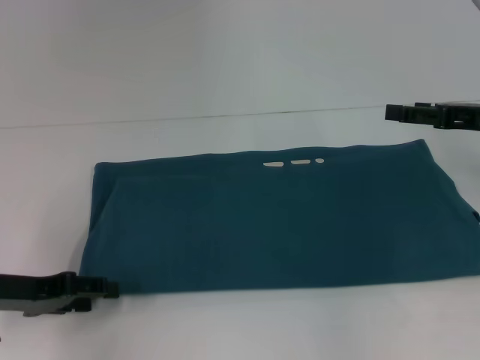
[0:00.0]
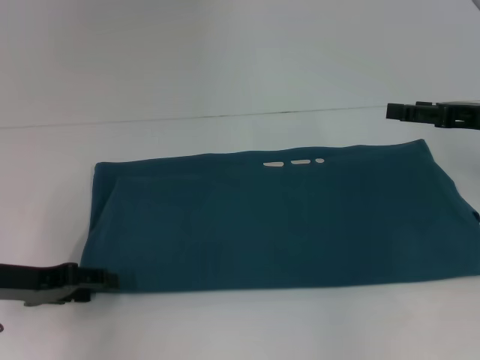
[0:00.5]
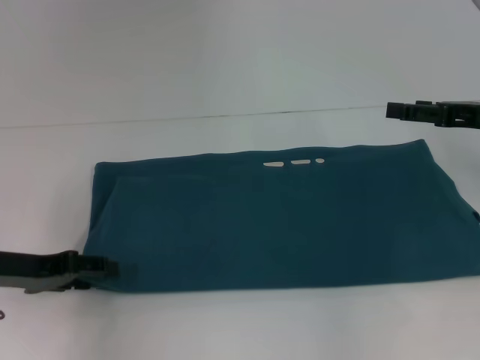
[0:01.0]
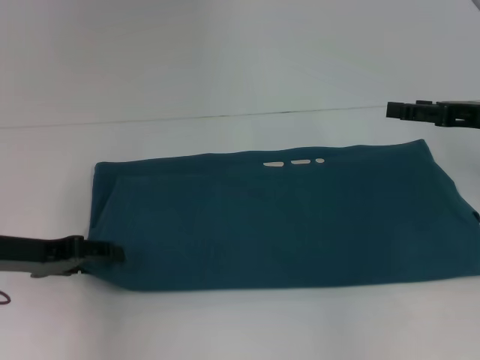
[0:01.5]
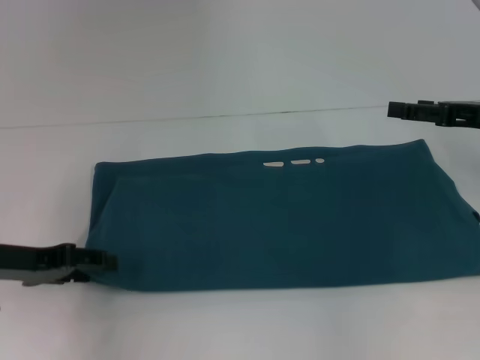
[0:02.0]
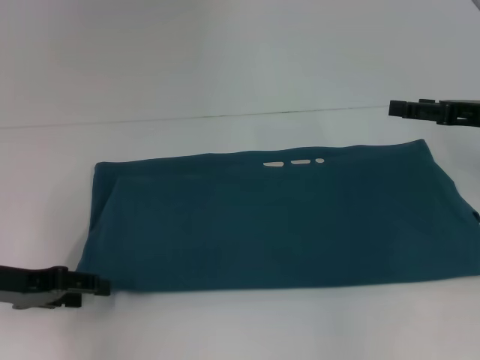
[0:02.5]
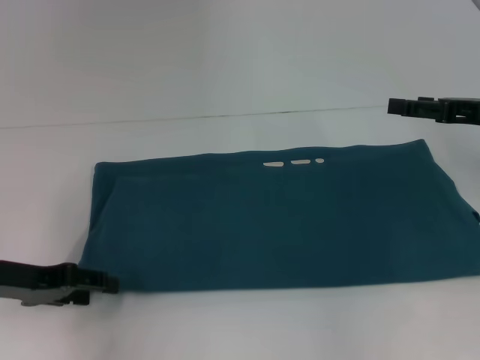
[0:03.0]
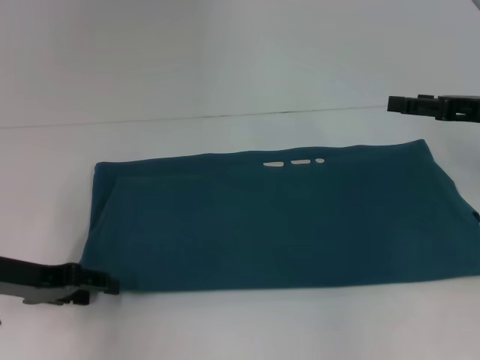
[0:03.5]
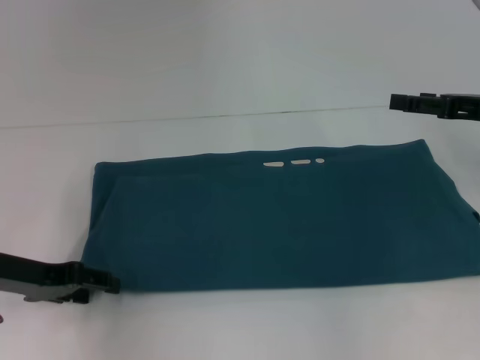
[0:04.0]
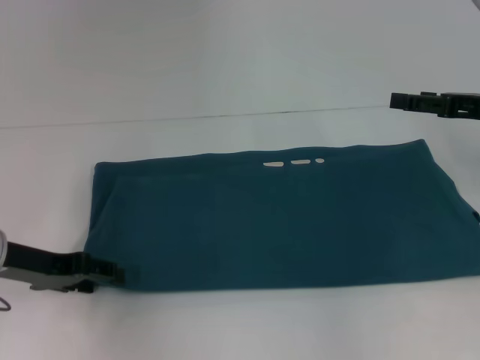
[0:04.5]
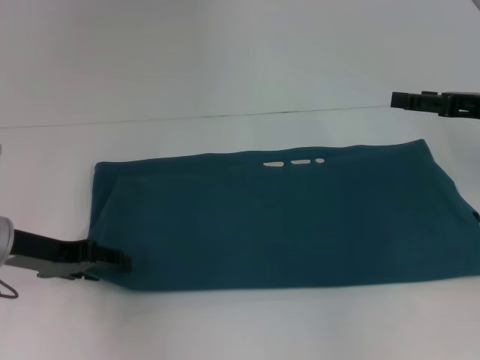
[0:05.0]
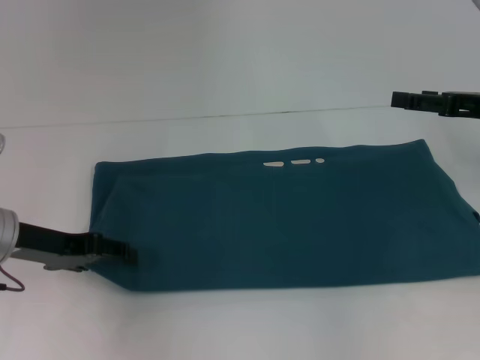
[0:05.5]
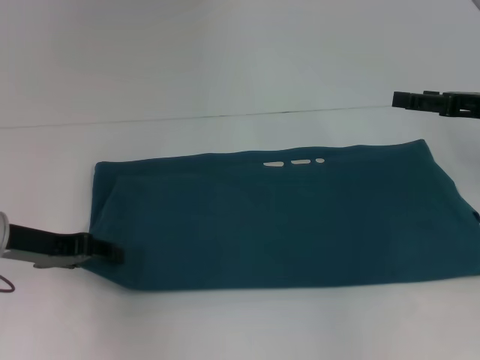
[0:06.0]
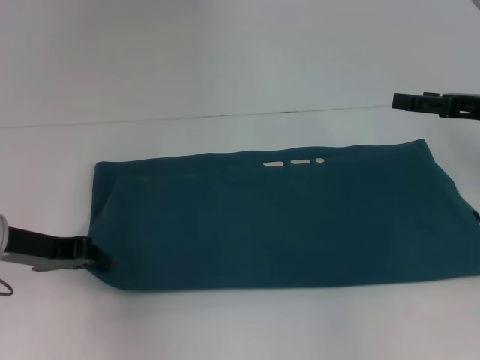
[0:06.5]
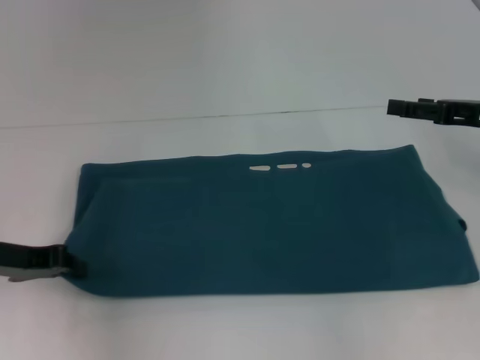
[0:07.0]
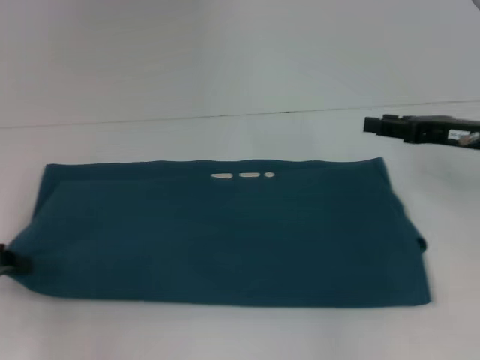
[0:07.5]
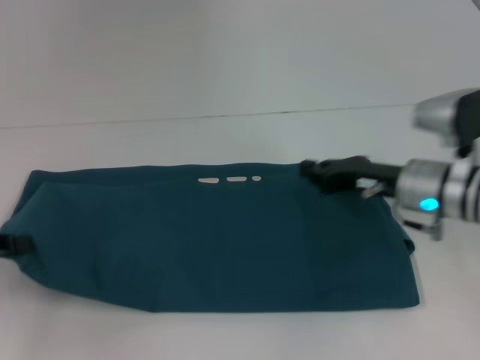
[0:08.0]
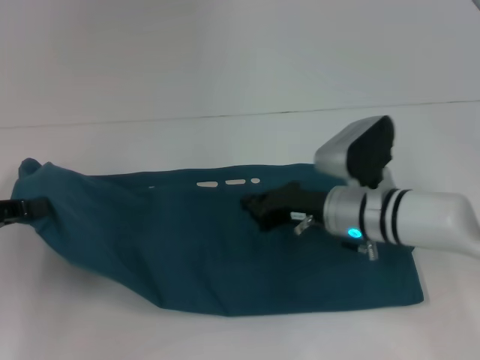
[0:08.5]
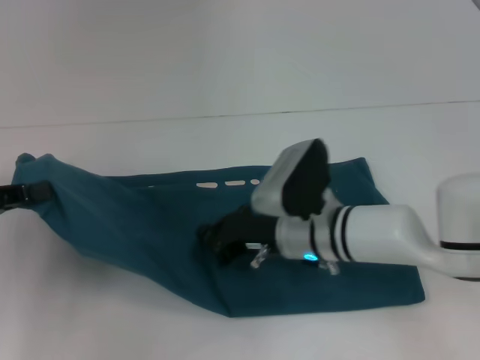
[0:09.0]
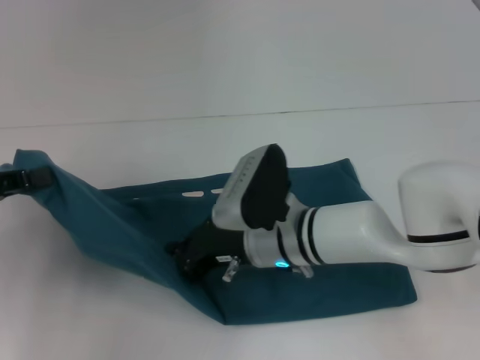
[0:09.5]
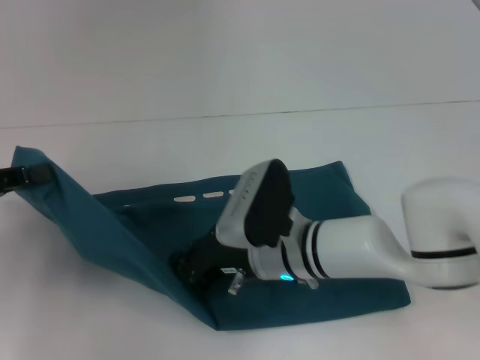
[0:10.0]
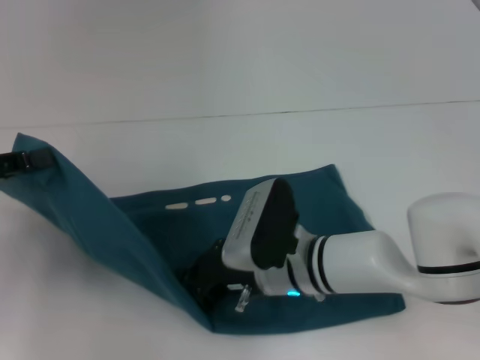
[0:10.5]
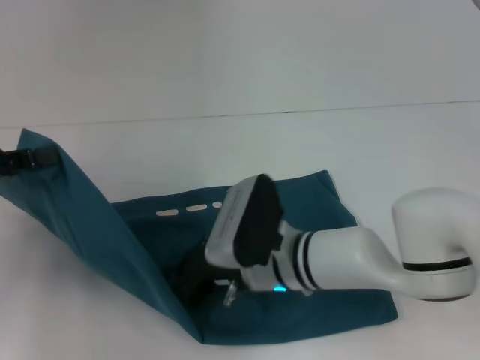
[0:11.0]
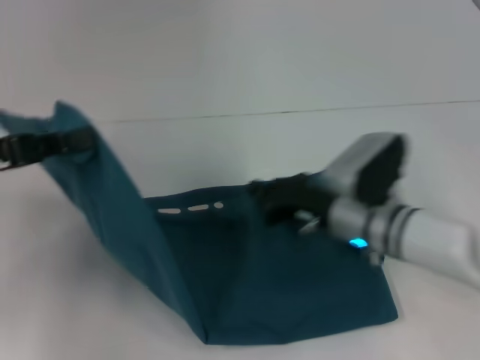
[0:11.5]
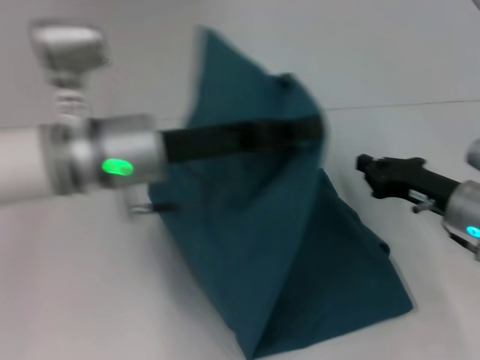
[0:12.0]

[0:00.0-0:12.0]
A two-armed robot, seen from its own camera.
Step, 0:00.0 to 0:11.0: Press the middle of the clothes with your right hand.
0:00.0 to 0:04.0: The grippers move only a little.
0:04.0 to 0:06.0: There are only small adjustments of the grippers.
0:06.0 to 0:08.0: The right gripper travels to the left and downward by about 15 cm, and closes. The left gripper shifts roughly 10 cm to the left and backward, and closes up.
0:08.0 to 0:10.0: The right gripper moves to the left, roughly 15 cm.
0:10.0 to 0:12.0: The two grippers go approximately 20 cm to the right.

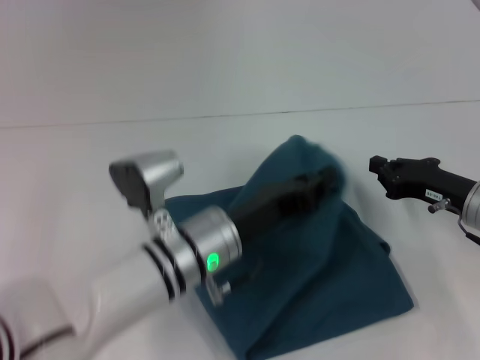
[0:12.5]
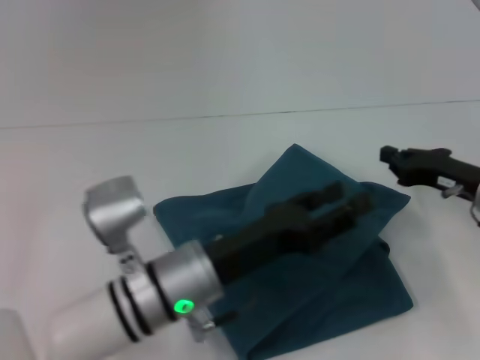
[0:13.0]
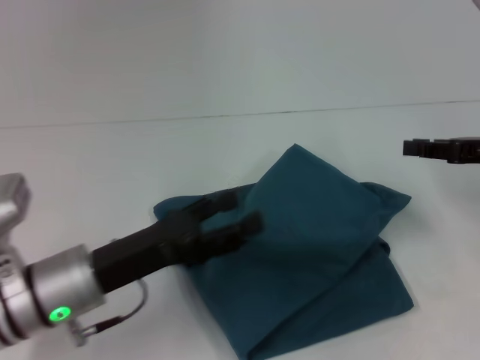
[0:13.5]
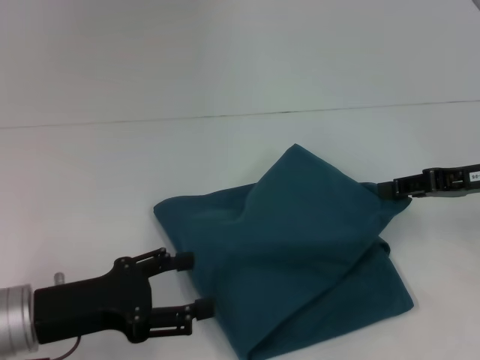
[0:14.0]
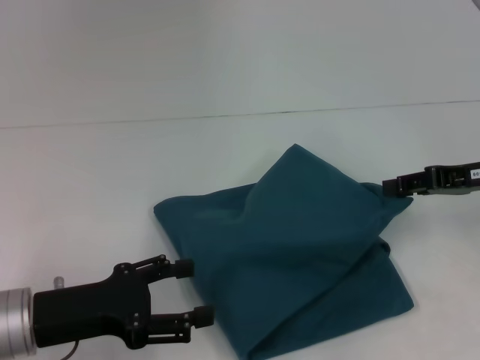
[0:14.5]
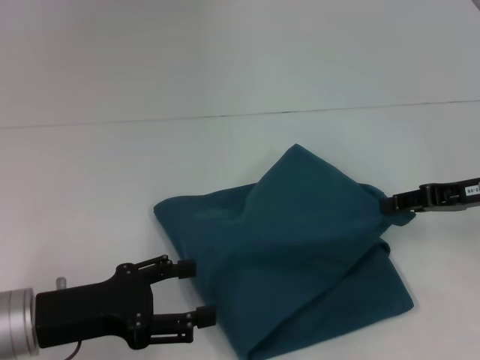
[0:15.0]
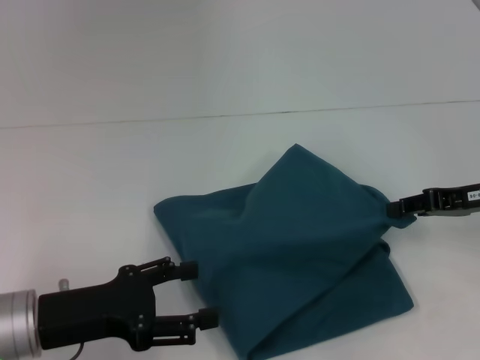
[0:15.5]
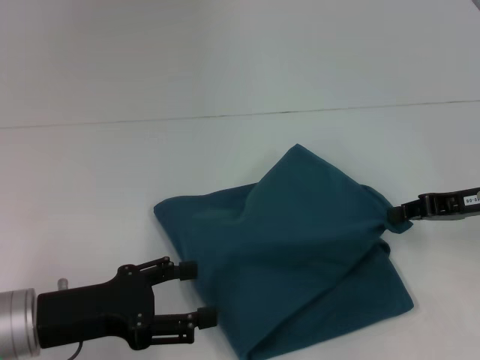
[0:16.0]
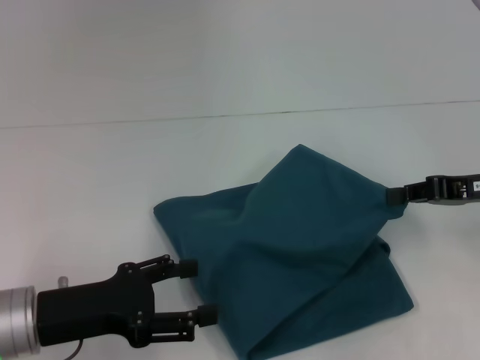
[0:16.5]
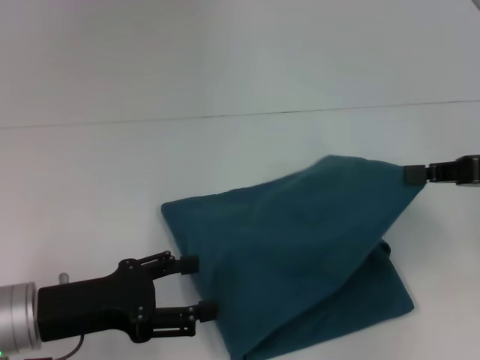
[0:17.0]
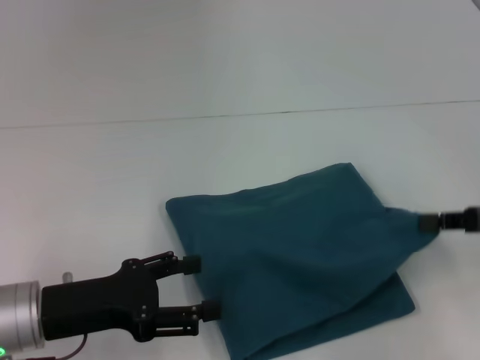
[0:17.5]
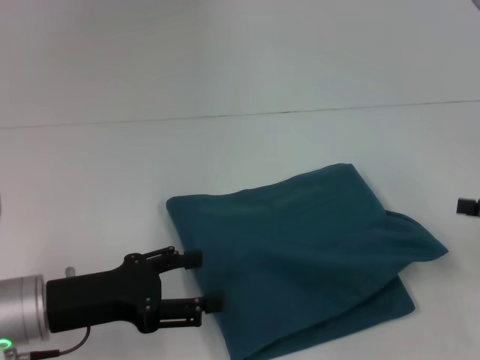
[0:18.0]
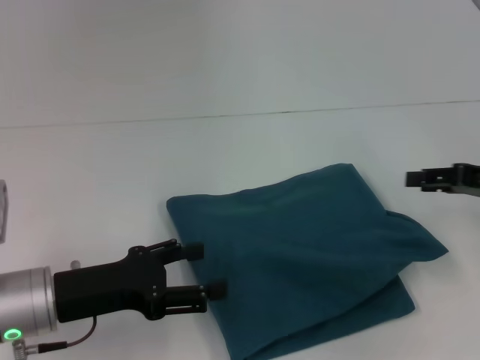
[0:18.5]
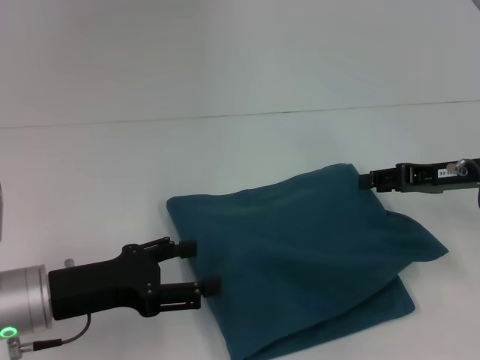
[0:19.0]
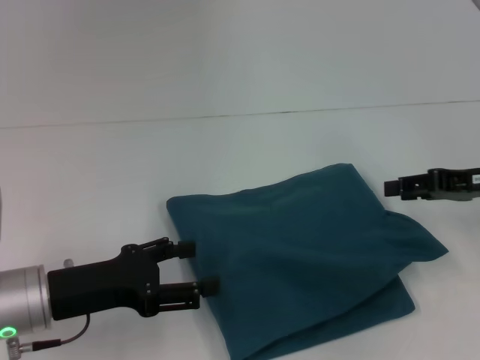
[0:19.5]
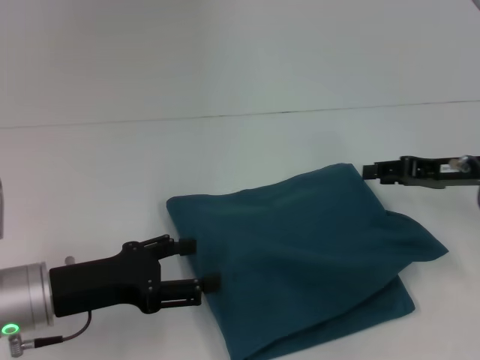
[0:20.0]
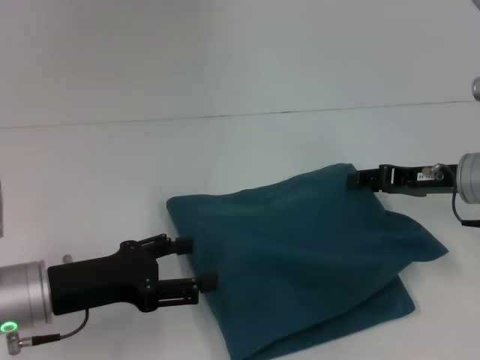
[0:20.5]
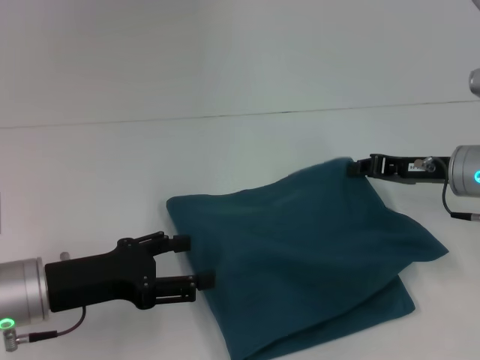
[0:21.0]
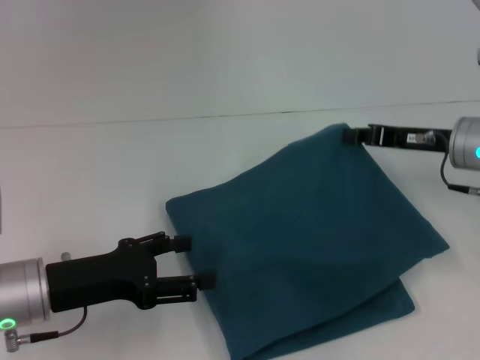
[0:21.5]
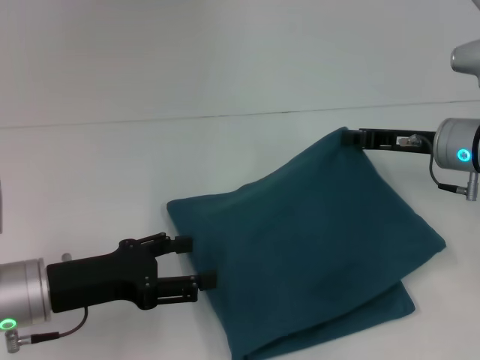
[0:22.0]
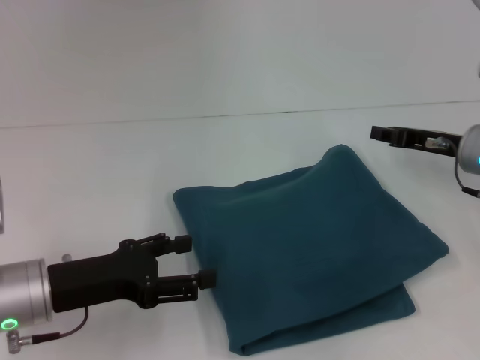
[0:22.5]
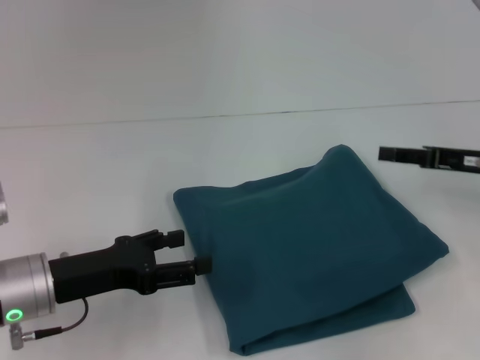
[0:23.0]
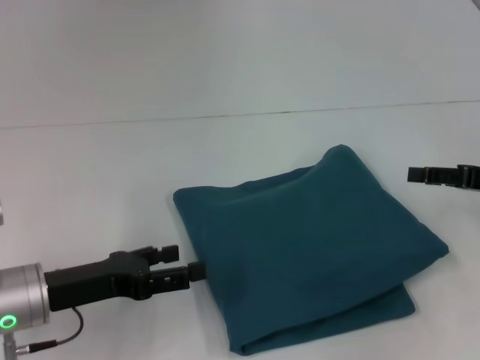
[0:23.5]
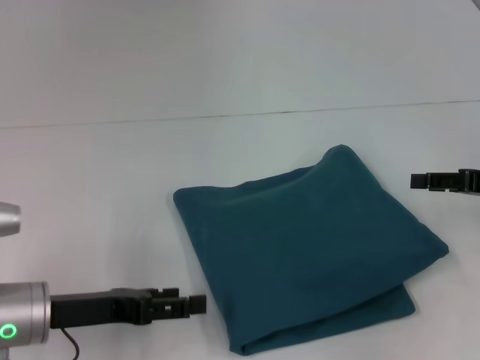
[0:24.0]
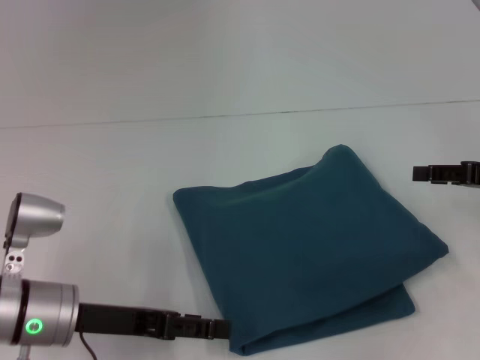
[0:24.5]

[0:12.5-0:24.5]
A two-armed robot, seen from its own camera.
0:12.5 to 0:14.5: The right gripper heads upward, covering roughly 10 cm, and opens its fingers. Meanwhile the left gripper travels to the left by some 20 cm, and opens.
0:14.5 to 0:16.5: The right gripper closes its fingers.
0:16.5 to 0:18.5: The right gripper opens up.
0:18.5 to 0:20.5: The right gripper heads to the left, covering roughly 5 cm.
0:22.5 to 0:24.5: The right gripper moves to the right and backward, about 10 cm, and opens up.

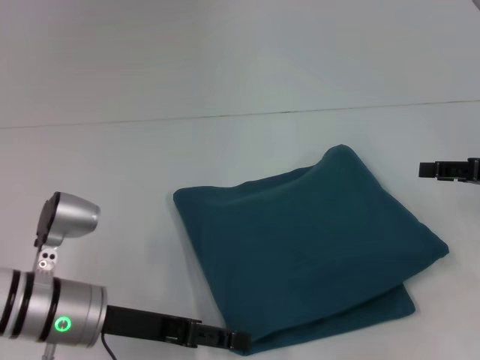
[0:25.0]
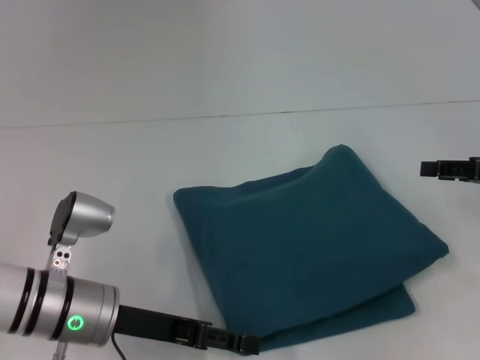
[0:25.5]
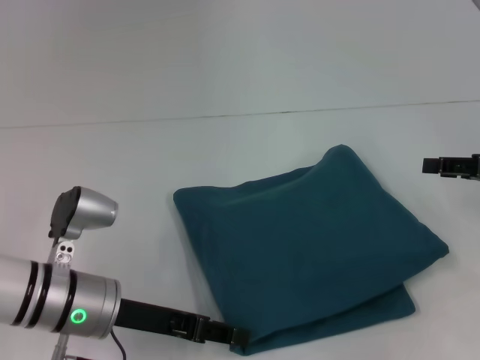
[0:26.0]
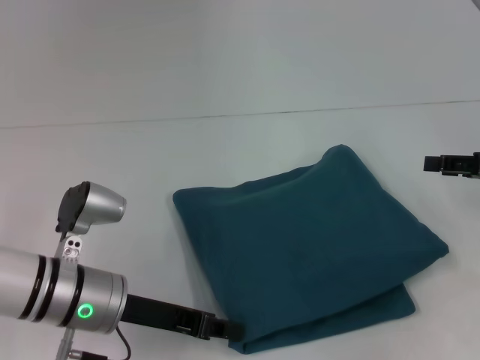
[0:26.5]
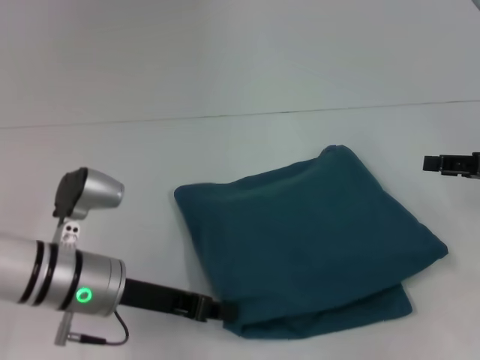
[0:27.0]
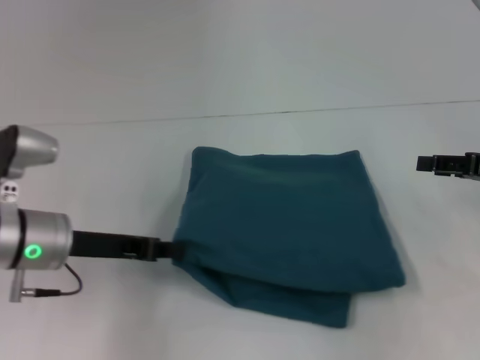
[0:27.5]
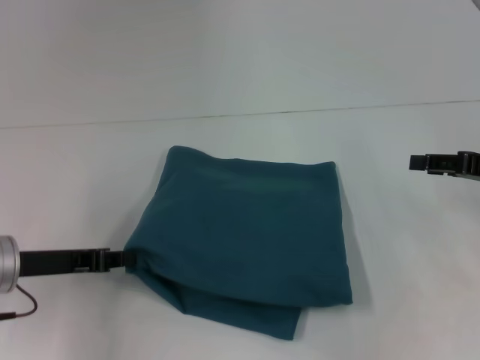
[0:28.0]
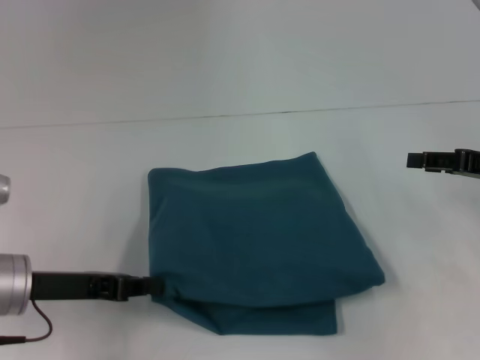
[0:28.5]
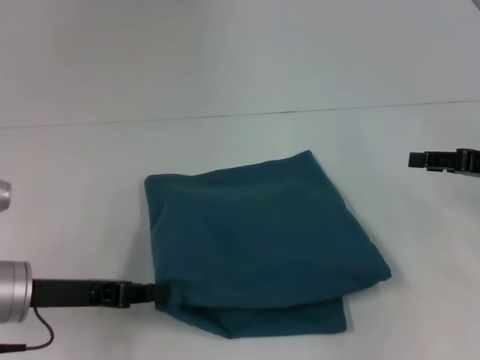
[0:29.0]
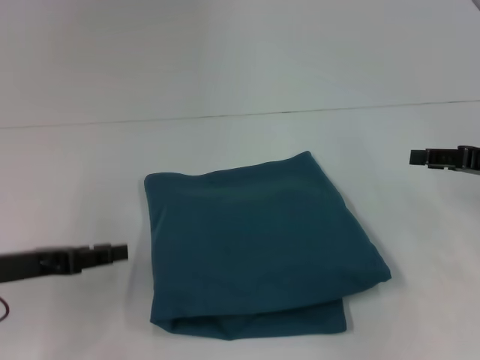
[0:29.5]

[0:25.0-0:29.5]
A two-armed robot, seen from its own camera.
0:25.0 to 0:27.0: The left gripper closes.
0:27.0 to 0:29.5: The left gripper shifts roughly 15 cm to the left.
